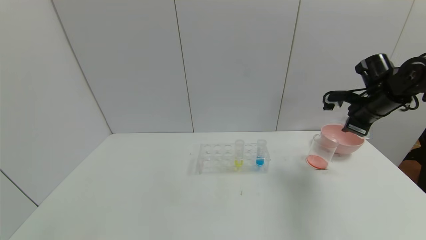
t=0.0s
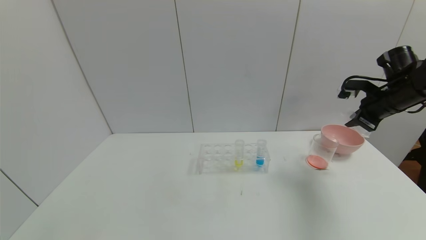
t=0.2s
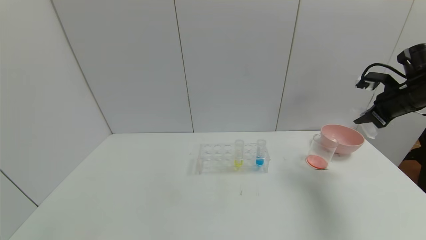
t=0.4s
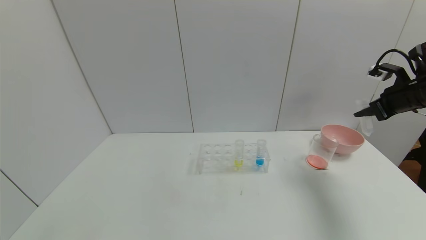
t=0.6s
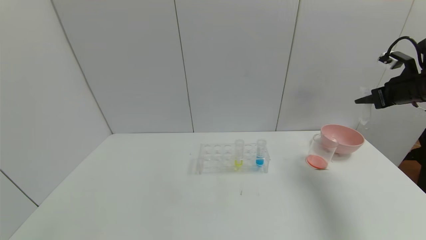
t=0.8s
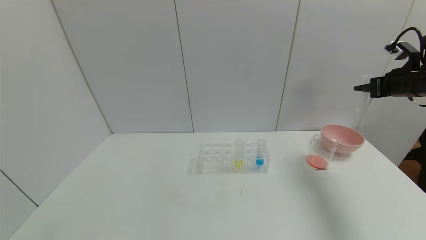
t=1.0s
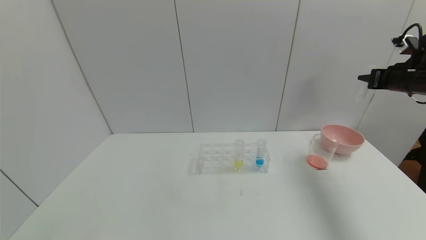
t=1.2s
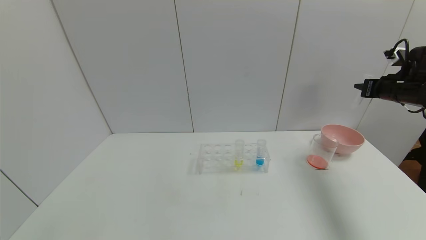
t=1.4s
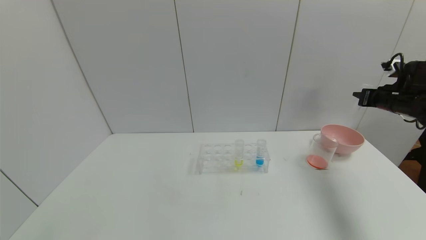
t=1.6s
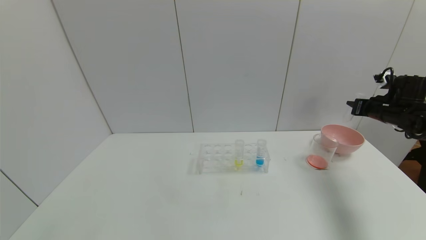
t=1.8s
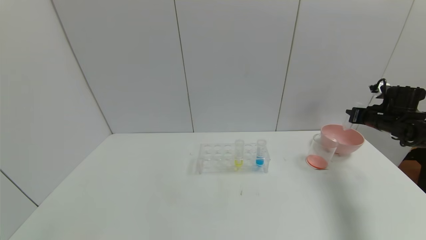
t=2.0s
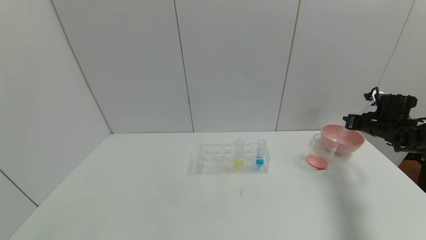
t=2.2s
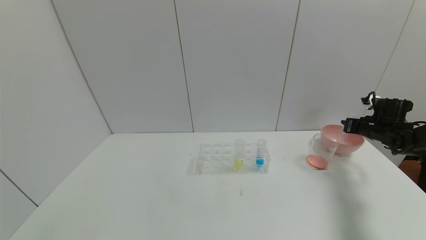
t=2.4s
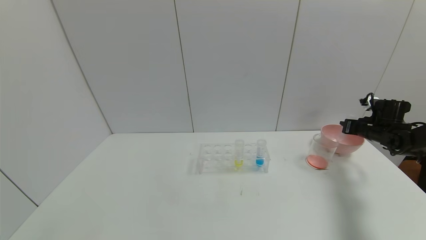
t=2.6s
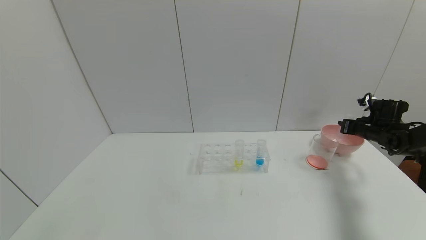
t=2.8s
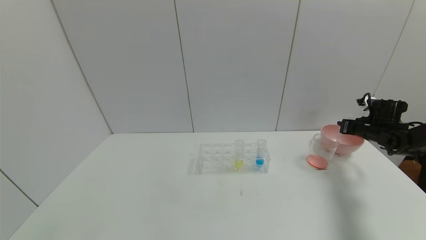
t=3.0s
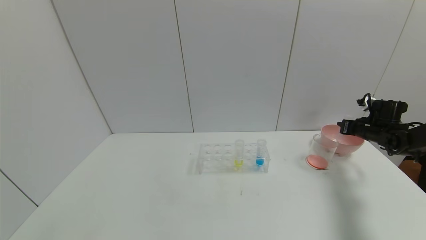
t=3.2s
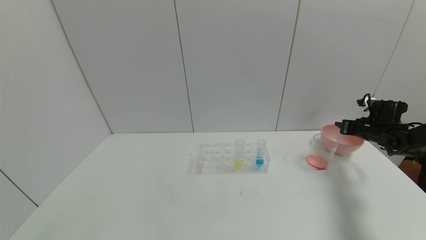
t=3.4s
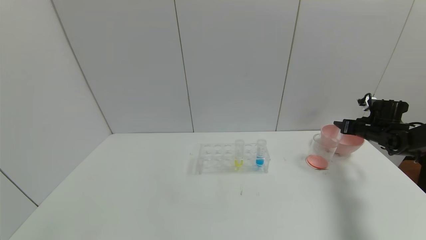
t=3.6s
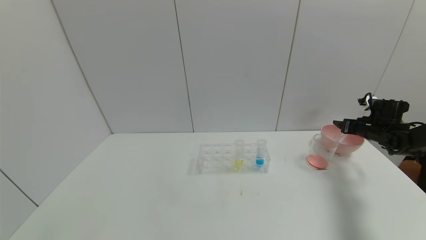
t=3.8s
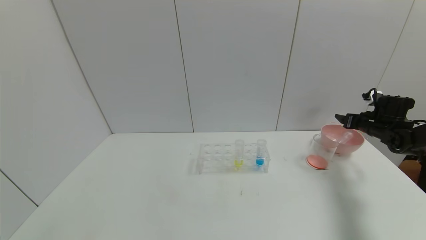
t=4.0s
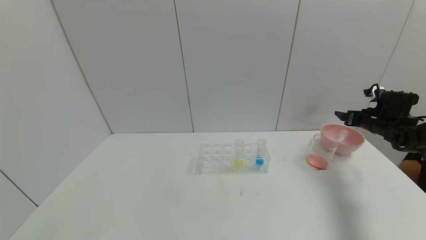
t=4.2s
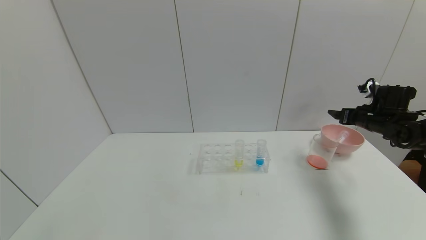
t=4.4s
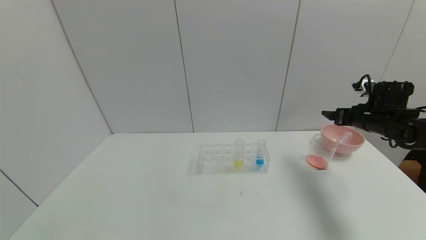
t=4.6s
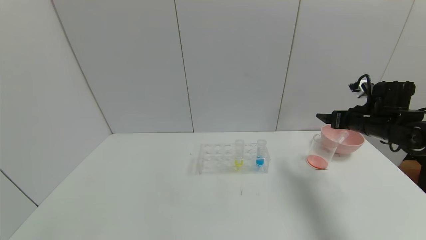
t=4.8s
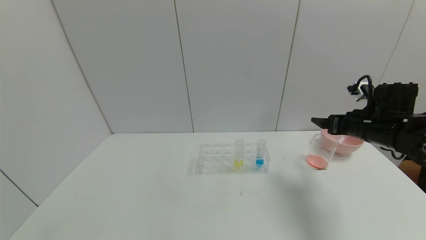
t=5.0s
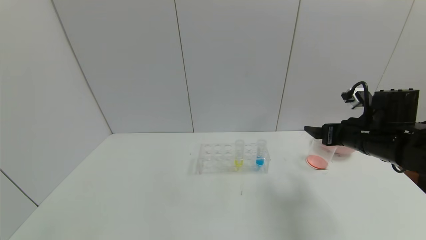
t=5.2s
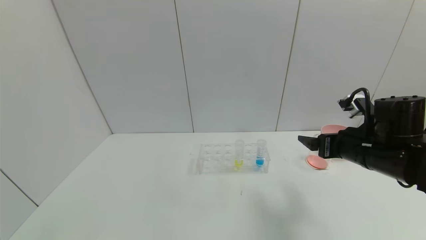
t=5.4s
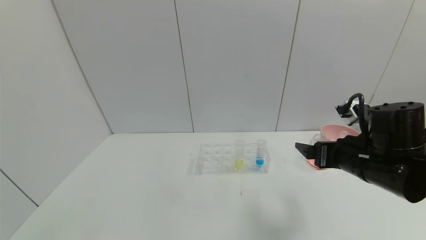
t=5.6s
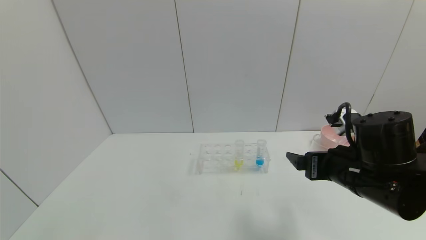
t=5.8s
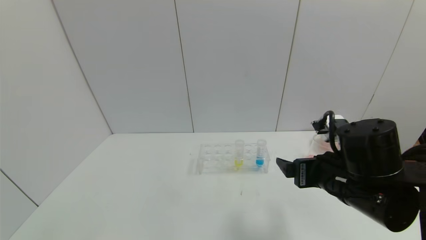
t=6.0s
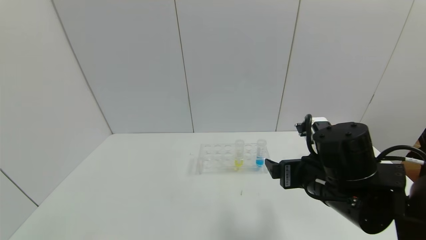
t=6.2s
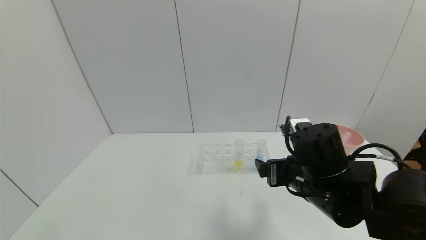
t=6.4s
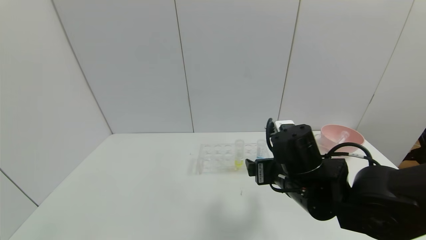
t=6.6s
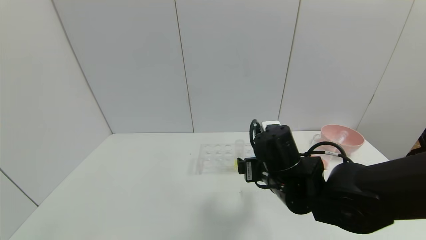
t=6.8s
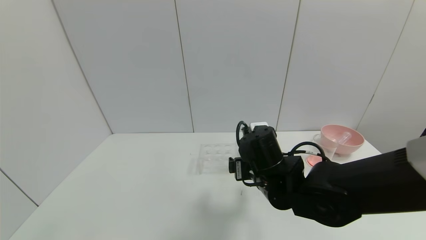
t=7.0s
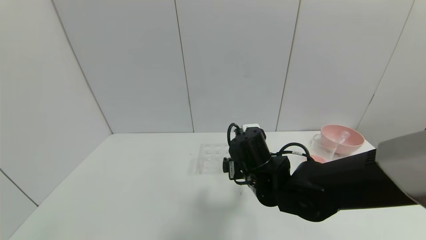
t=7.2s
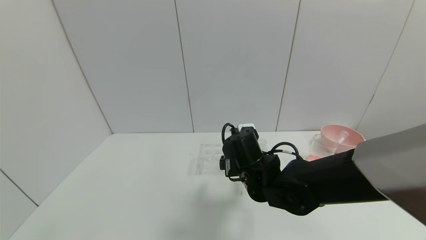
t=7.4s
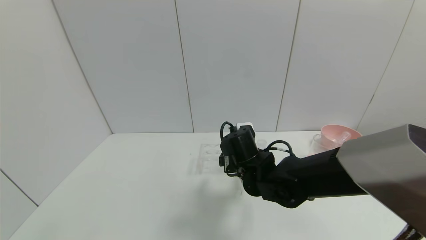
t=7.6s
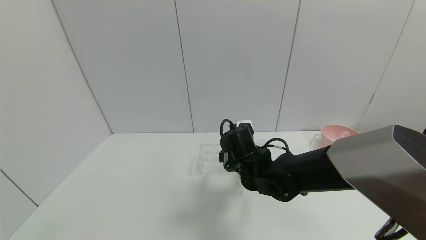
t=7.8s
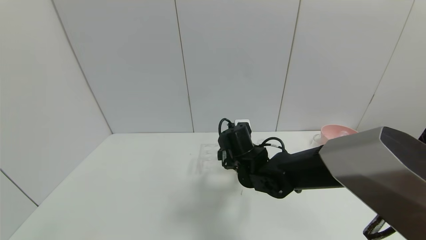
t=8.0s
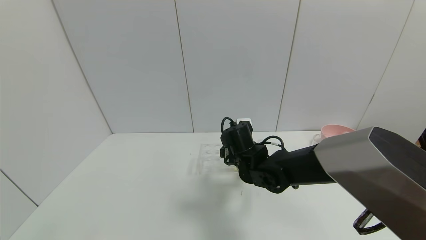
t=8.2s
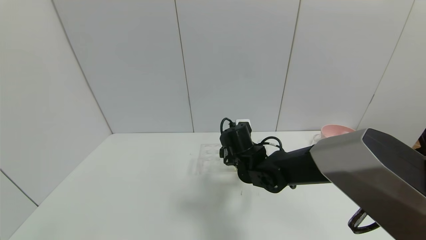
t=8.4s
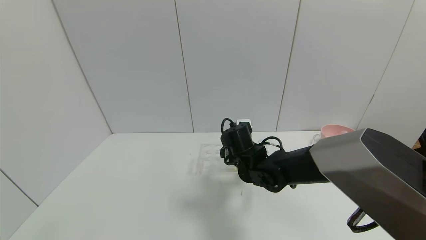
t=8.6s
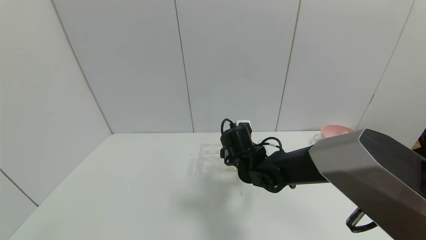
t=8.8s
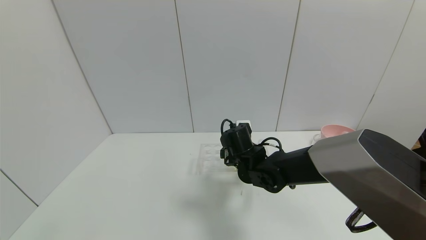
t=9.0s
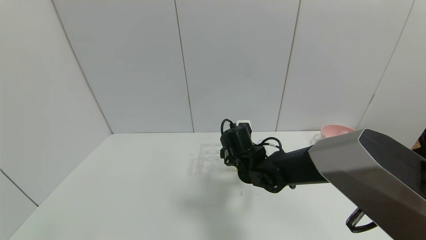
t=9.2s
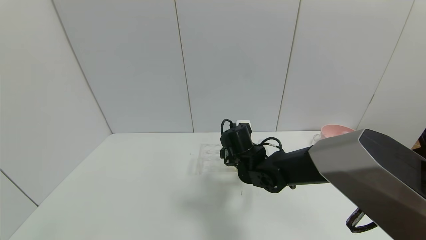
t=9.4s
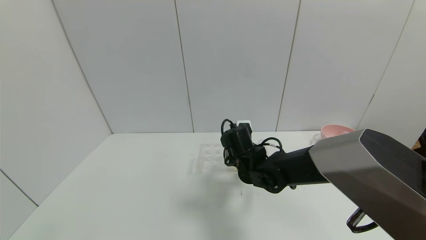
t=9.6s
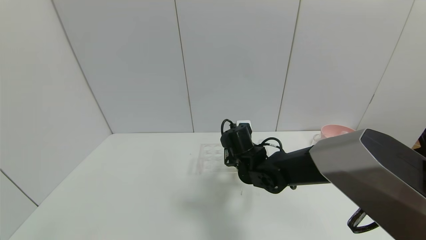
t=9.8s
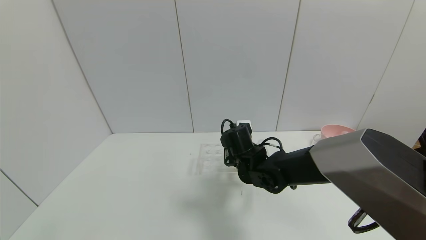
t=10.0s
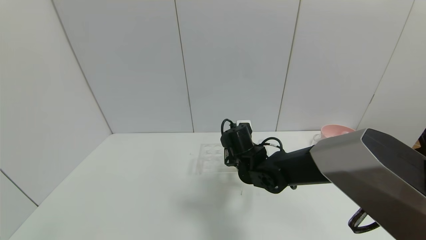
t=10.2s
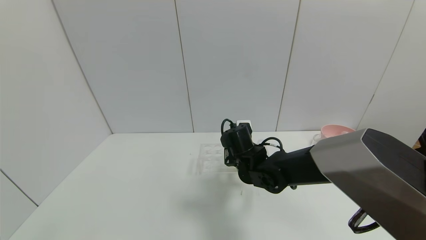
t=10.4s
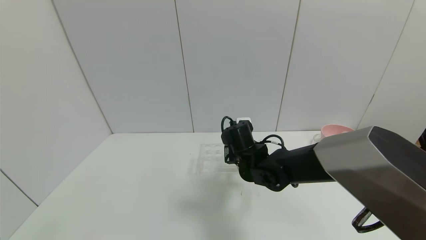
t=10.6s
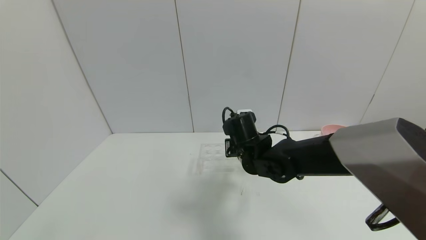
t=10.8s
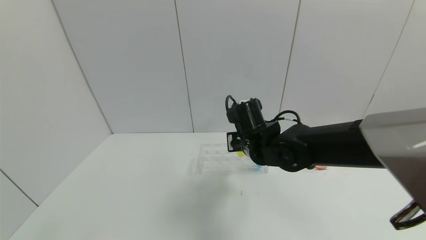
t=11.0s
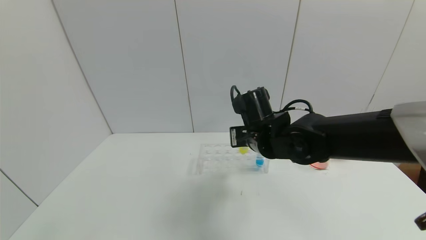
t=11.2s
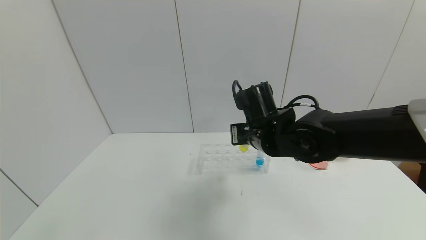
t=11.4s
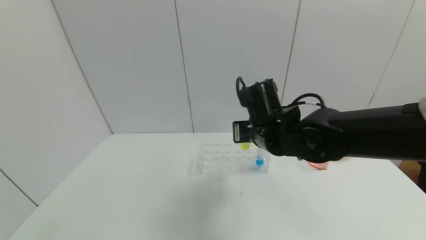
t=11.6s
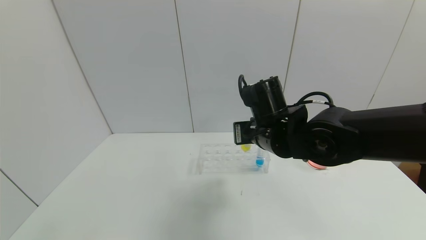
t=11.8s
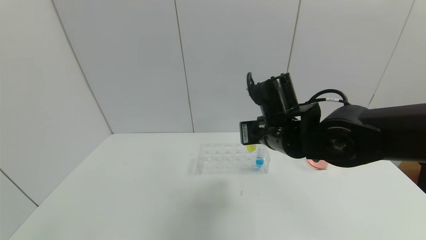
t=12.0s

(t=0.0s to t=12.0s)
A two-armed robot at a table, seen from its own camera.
Task of the whole recording: pick up the test tube with yellow pigment and the test tube with red pigment by grippers and pour them into the beaker.
Step, t=1.0s - t=5.0s: Place the test tube into the bowl with right gripper.
t=0.0s - t=1.6s: The right gripper is displaced to the right by approximately 10 cm.
t=1.6s - t=3.0s: The right gripper is displaced downward by about 10 cm.
t=3.0s - t=4.4s: The right gripper moves upward, about 5 cm, and opens.
t=4.4s - t=6.0s: The right gripper heads to the left and backward, covering roughly 30 cm.
t=6.0s - t=7.6s: The right gripper is displaced to the left, forward and downward by some 20 cm.
t=7.6s - t=9.0s: The grippers move only a little.
t=9.0s - t=10.4s: The right gripper closes up.
t=10.4s - t=12.0s: The right gripper heads upward, backward and to the right, covering about 15 cm.

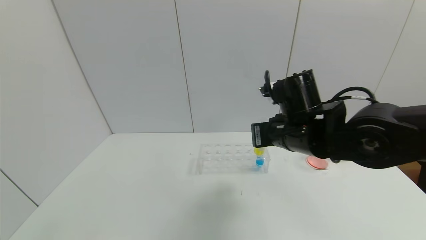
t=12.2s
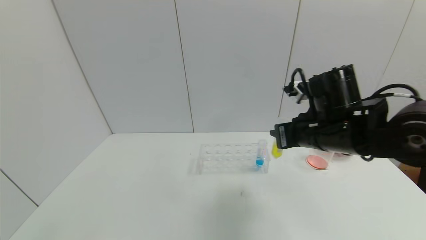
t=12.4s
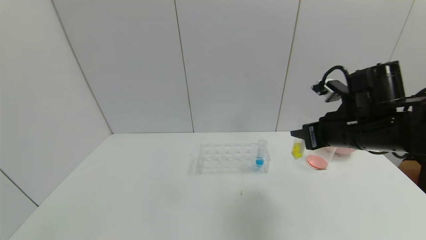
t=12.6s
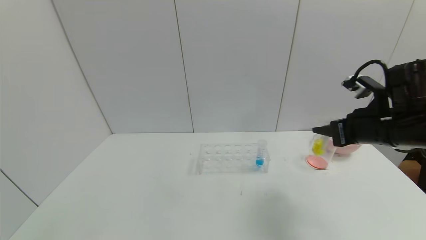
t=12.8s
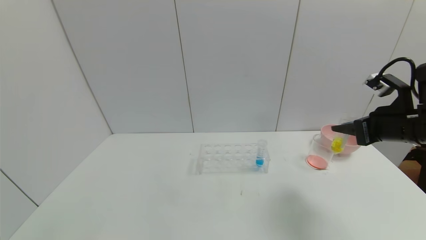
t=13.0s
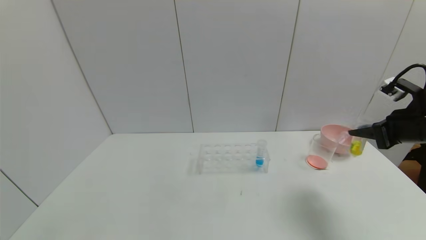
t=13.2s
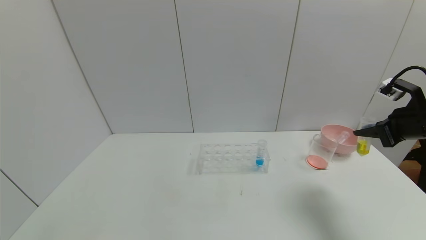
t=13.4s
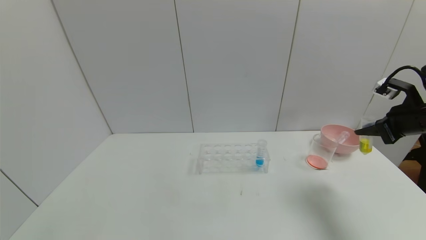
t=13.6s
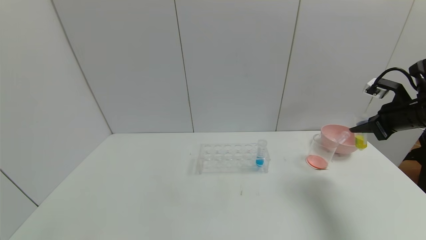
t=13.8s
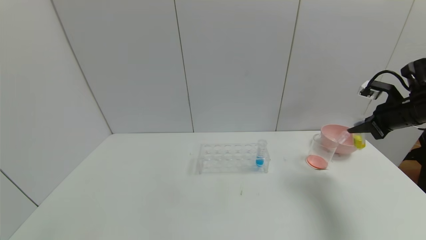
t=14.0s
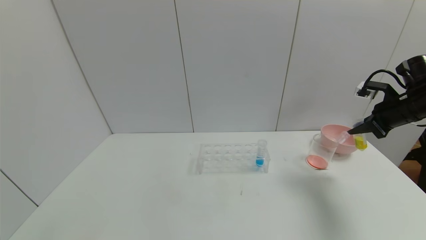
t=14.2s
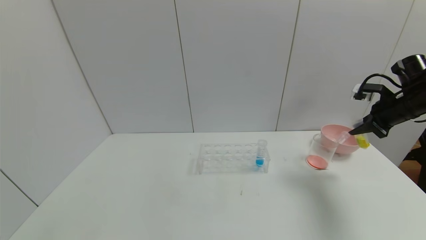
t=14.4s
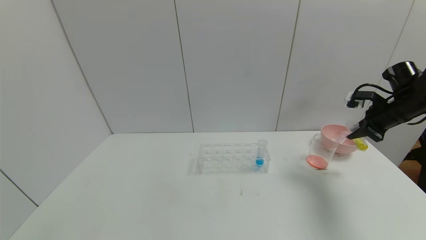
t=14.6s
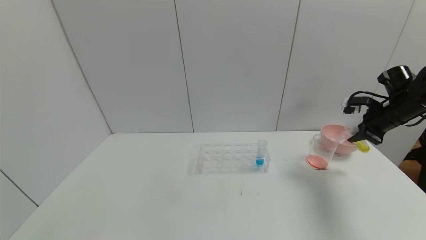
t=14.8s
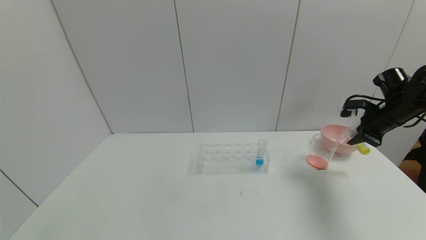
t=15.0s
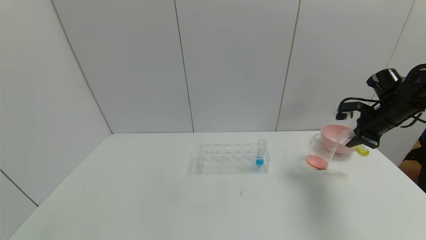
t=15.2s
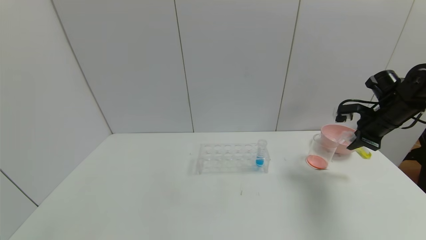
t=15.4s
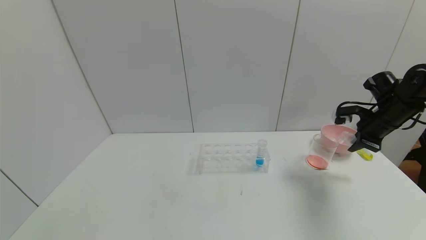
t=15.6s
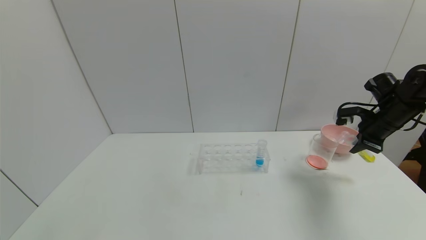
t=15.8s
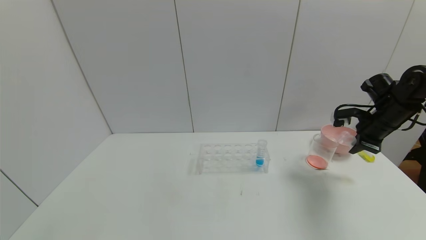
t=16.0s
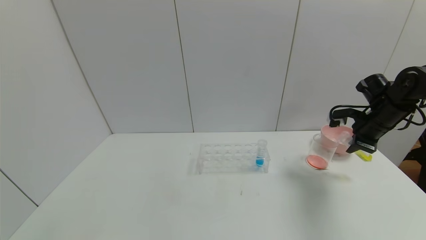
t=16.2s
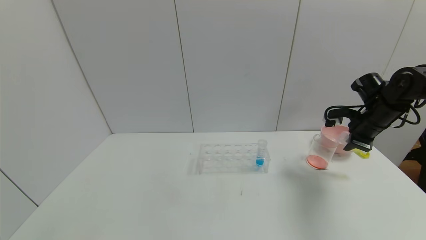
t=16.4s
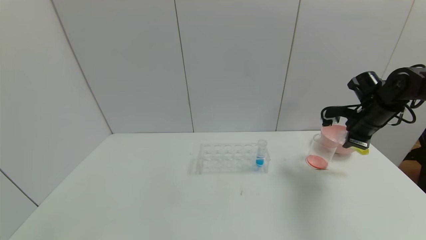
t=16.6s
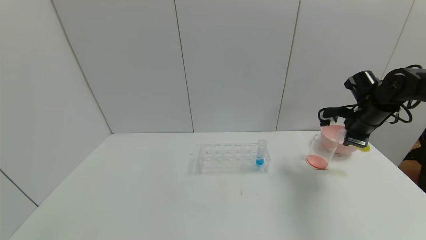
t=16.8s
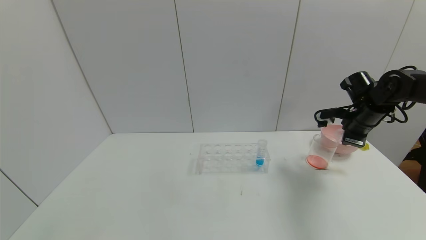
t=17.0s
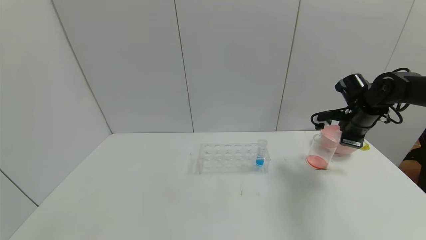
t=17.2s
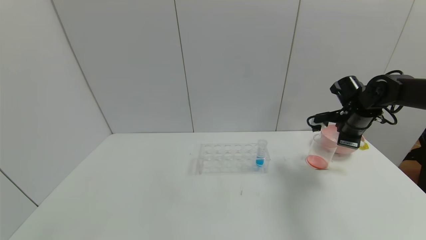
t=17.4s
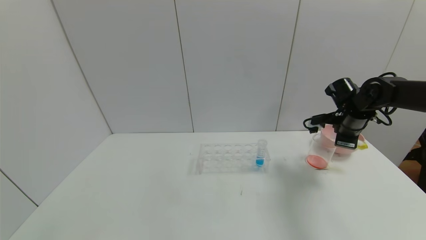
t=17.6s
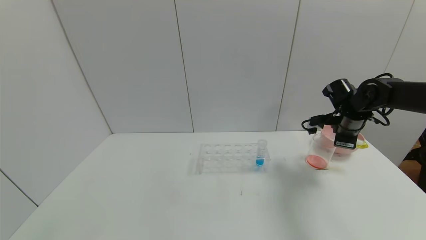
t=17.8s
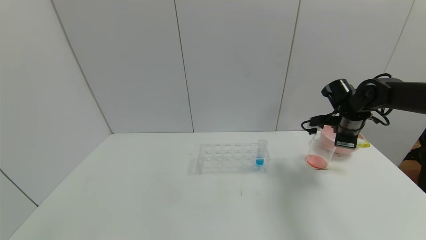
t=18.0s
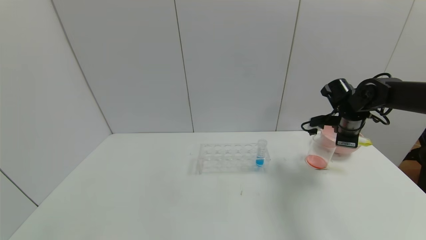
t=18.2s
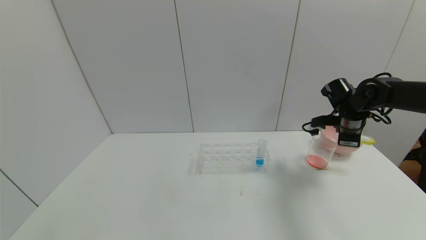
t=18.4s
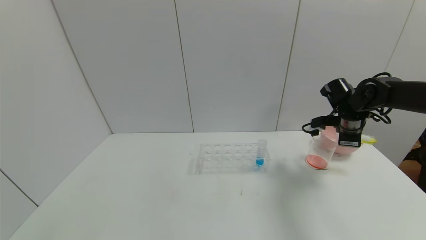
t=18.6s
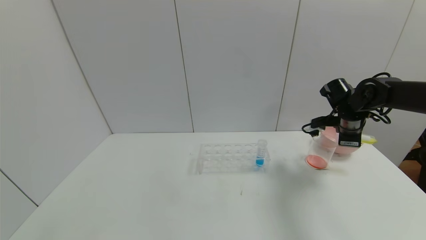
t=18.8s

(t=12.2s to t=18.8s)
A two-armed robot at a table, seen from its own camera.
Task of the whole recording: pick up the test tube with yellow pigment and the test tube with red pigment by grippers and pour them into the beaker.
t=12.2s - t=13.8s: The right gripper moves to the right, some 25 cm.
t=13.8s - t=15.4s: The right gripper goes roughly 5 cm forward.
t=15.4s - t=17.2s: The right gripper ends up approximately 5 cm from where it was.
t=17.2s - t=18.8s: The grippers stay close to where they were, moving slightly.
